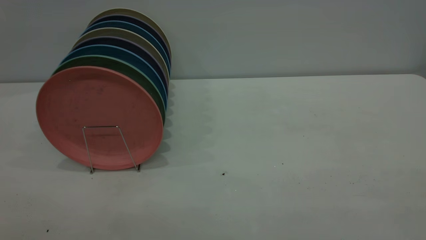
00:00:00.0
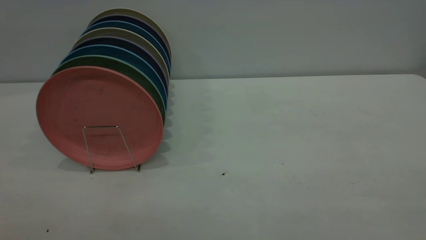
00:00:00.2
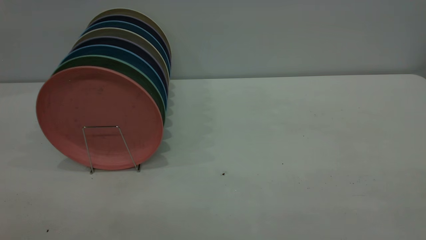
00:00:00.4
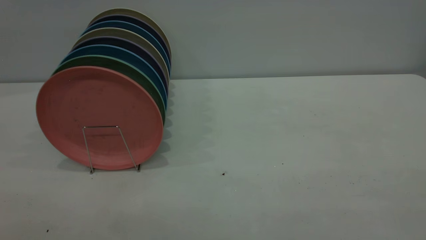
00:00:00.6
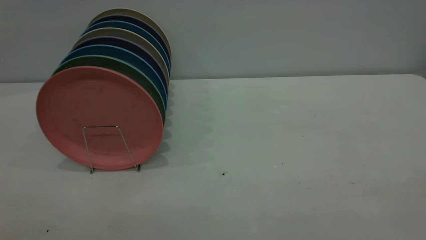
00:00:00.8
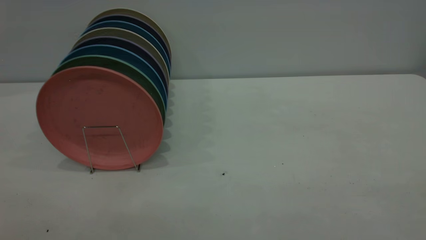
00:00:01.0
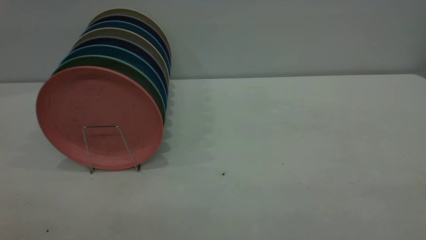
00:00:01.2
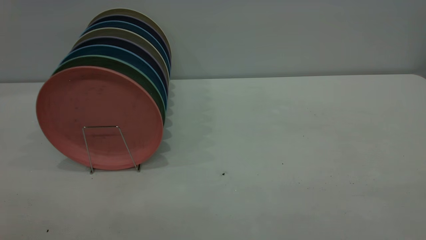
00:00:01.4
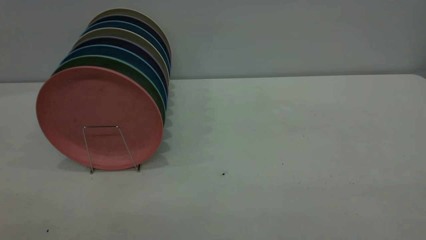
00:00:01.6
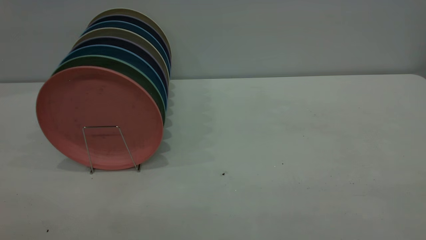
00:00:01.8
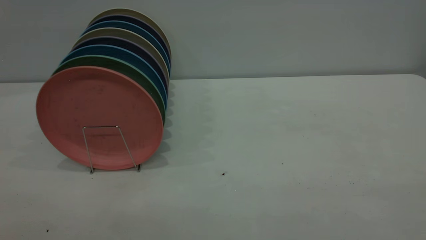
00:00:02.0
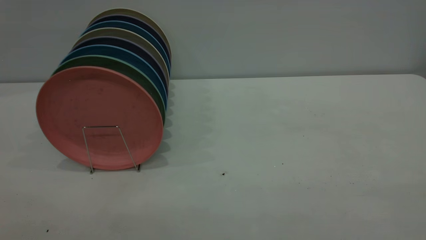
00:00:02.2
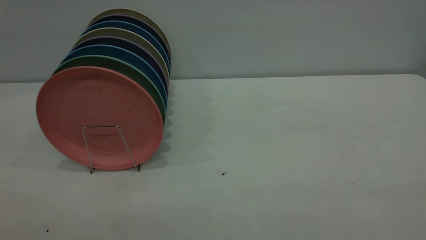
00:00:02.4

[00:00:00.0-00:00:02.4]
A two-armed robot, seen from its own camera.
Task of the whole recording: the right gripper grasp the pink plate, the right gripper pass the pink plate to the left gripper, and the left gripper place the pink plate on the plate rack.
00:00:01.2 to 00:00:02.4: The two grippers keep their place.

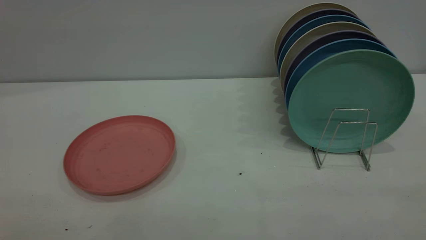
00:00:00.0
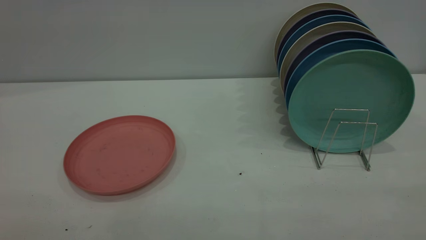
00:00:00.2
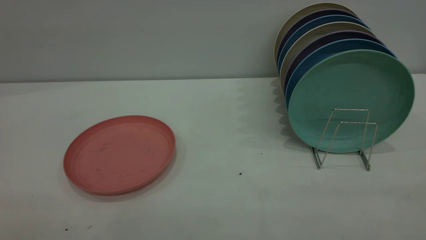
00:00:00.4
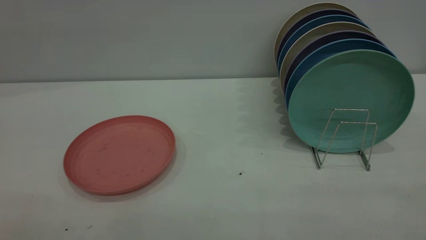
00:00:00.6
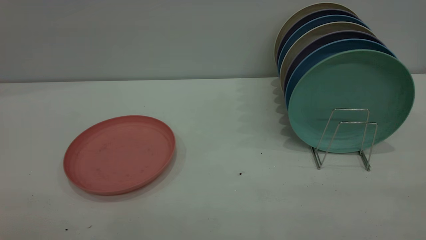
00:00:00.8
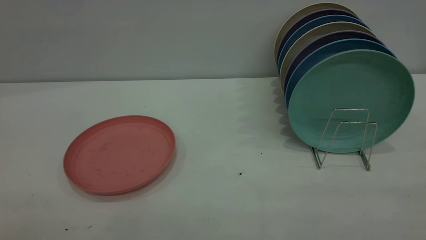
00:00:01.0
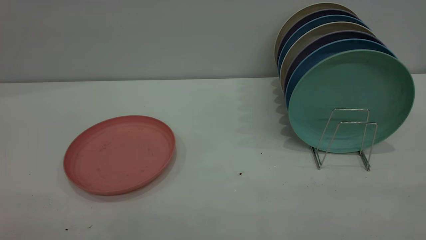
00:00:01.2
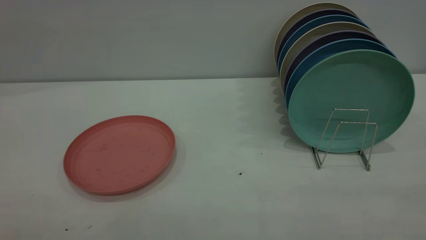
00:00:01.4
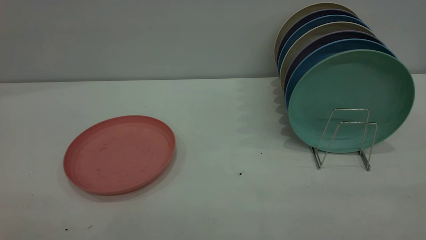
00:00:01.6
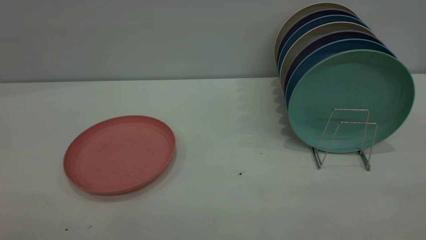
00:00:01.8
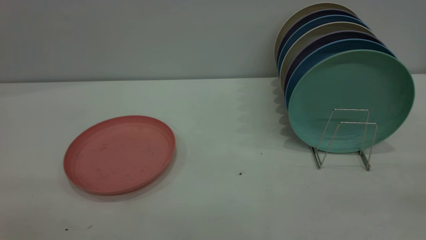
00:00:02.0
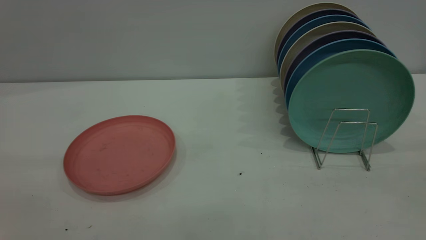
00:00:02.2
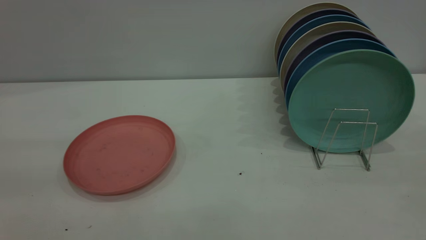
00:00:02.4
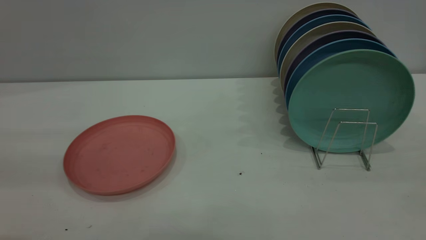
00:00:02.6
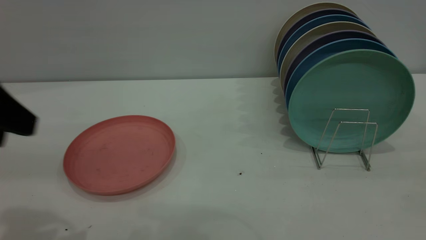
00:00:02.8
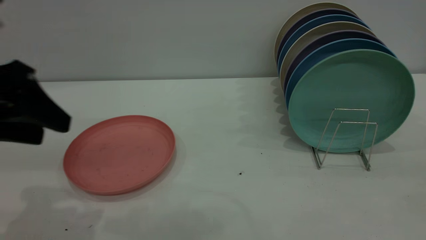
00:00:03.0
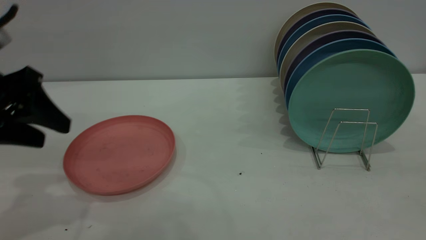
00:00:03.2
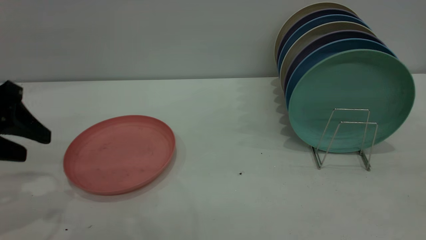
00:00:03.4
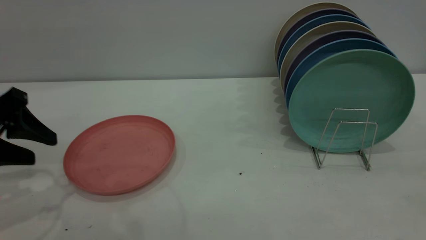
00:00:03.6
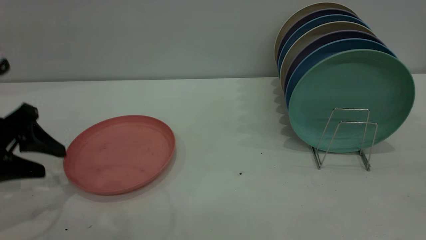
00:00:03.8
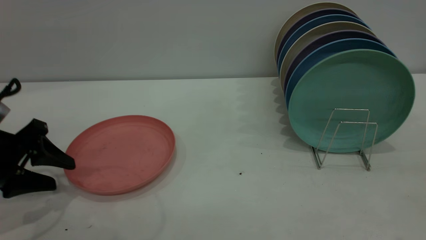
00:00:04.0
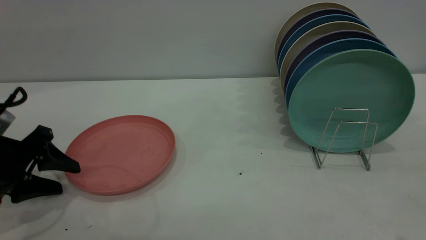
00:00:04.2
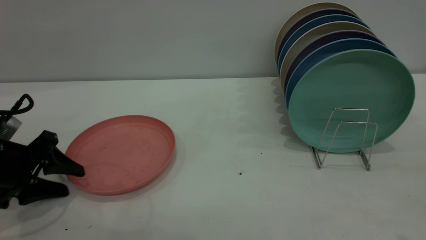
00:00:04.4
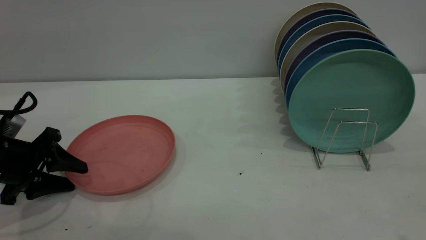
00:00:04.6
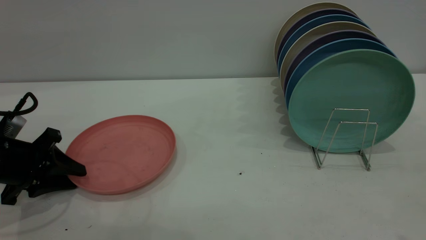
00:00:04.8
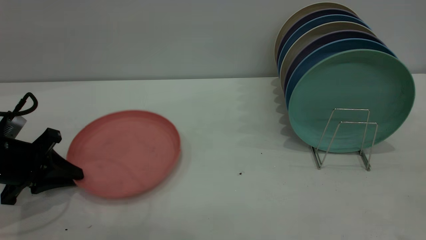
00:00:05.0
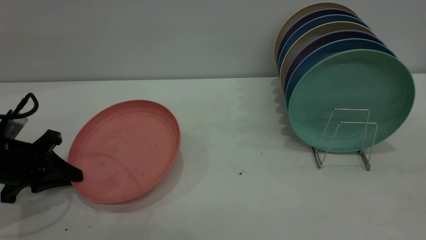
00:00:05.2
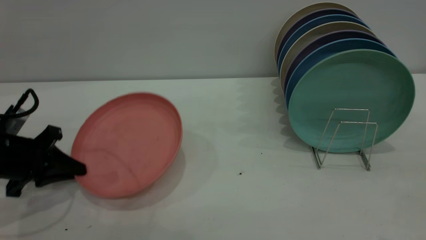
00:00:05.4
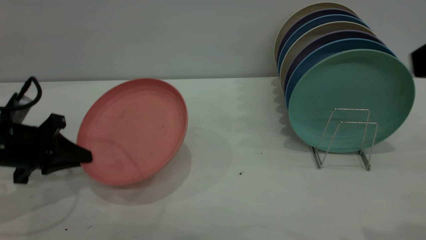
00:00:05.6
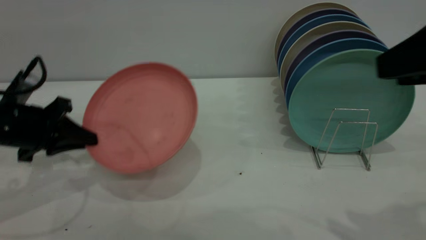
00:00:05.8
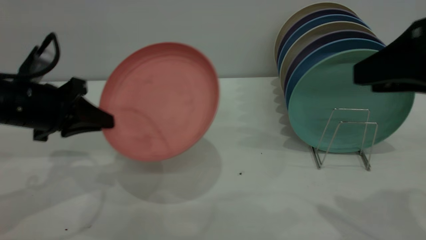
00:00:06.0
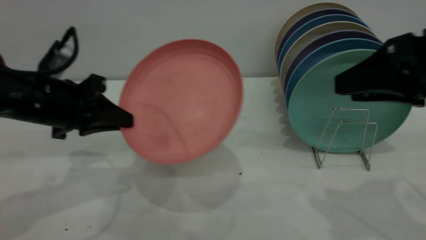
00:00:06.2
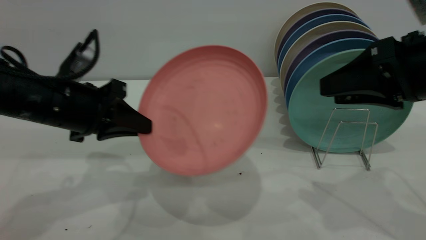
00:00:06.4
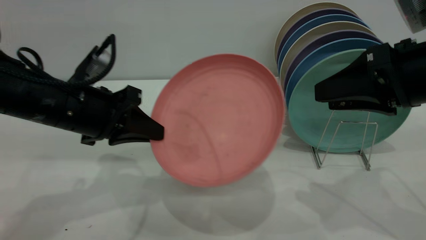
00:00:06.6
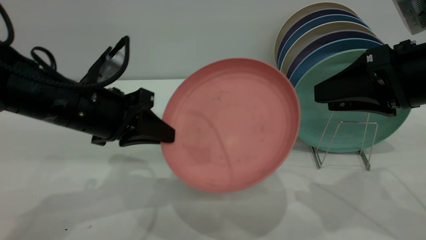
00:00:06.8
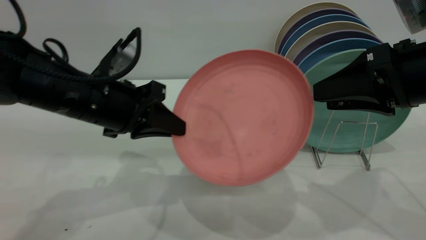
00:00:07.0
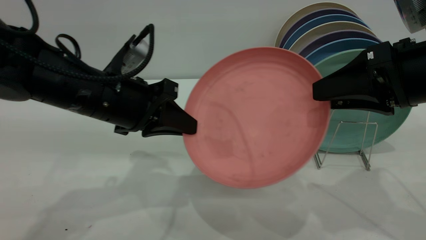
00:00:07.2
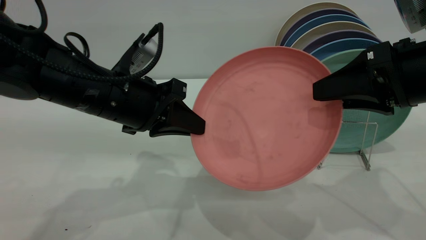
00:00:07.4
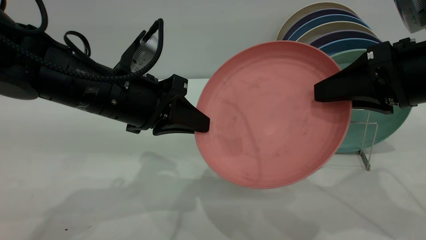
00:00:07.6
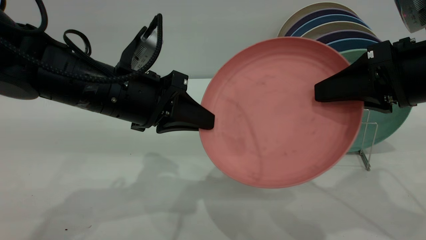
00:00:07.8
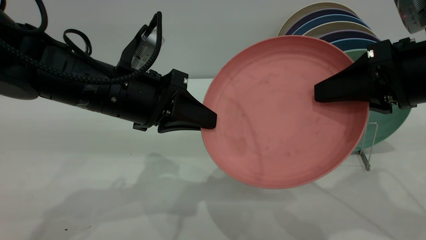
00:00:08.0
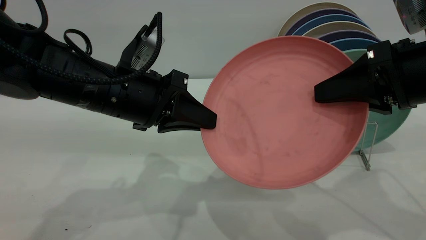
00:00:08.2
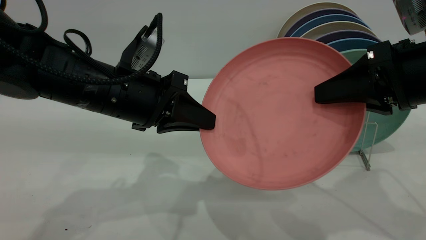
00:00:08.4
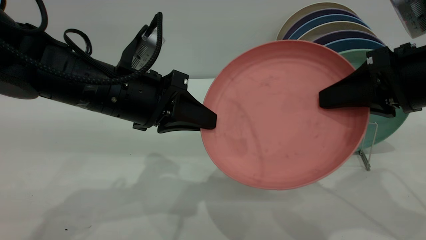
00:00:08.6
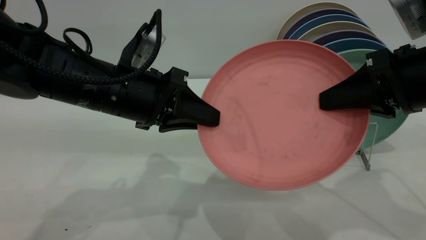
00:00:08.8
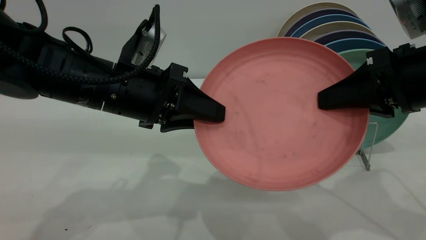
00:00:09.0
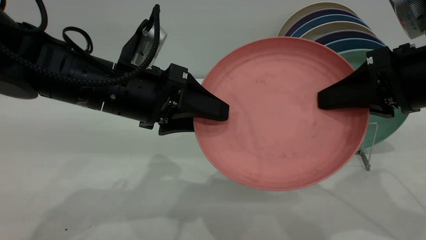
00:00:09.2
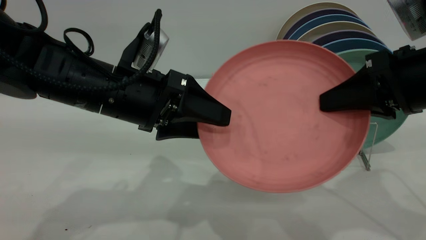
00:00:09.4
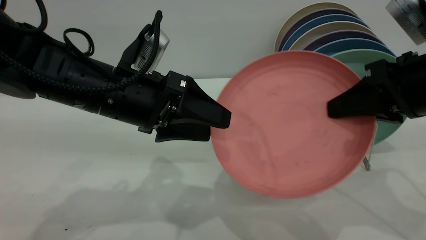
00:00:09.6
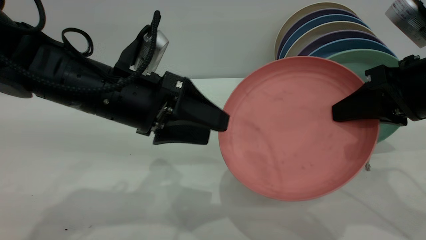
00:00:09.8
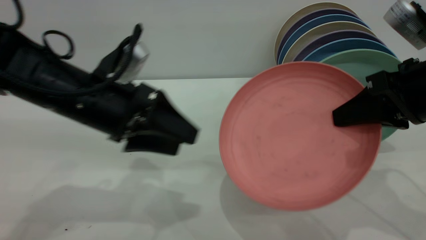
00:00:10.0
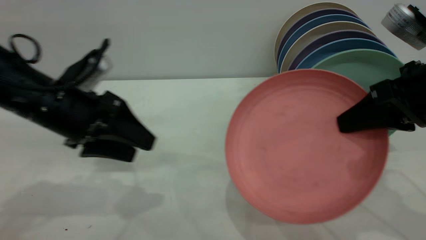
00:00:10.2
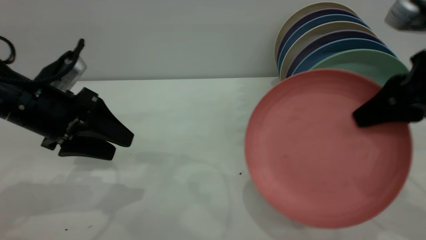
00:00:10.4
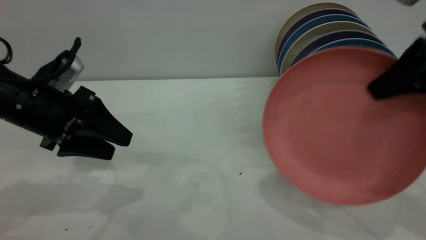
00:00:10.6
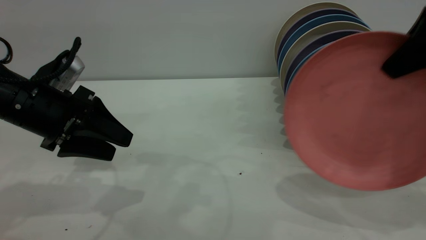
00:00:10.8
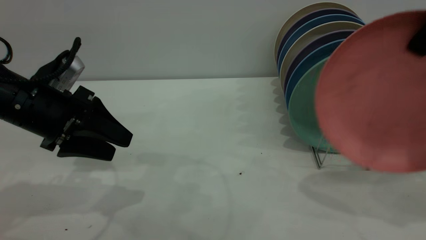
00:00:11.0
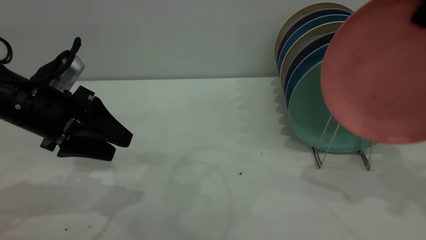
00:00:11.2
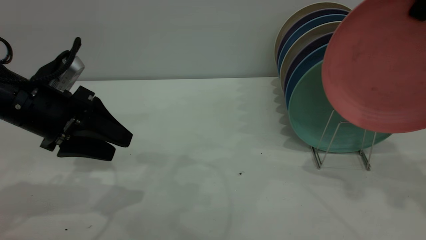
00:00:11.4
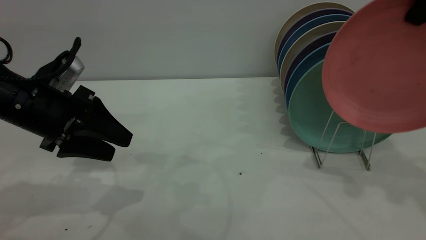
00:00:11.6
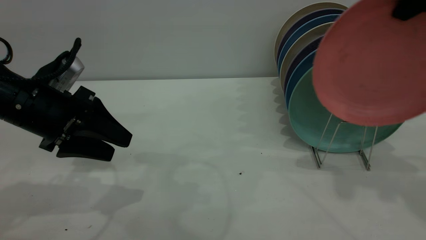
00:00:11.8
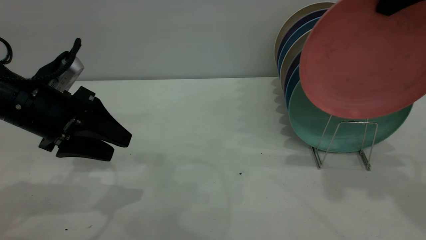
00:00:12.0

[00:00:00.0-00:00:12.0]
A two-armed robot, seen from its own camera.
Task of the whole recording: the left gripper grasp the pink plate, the left gripper pass the pink plate to the right gripper, and the right gripper place the pink plate on the plate rack.
Step, 00:00:00.0 to 00:00:05.4: Pick up the plate with the left gripper.
Step, 00:00:05.6 to 00:00:09.8: Pass the plate from the left gripper to the right gripper.
00:00:00.0 to 00:00:01.6: The two grippers keep their place.
00:00:01.6 to 00:00:03.0: The left gripper heads forward and downward, covering some 30 cm.
00:00:03.0 to 00:00:04.4: The left gripper shifts approximately 15 cm downward.
00:00:04.4 to 00:00:06.0: The left gripper goes approximately 10 cm upward and to the right, and closes; the right gripper goes approximately 15 cm forward and downward.
00:00:06.0 to 00:00:07.6: The right gripper moves roughly 5 cm, and closes its fingers, while the left gripper heads to the right, covering some 15 cm.
00:00:07.6 to 00:00:09.0: The right gripper closes. Meanwhile the left gripper opens.
00:00:09.0 to 00:00:10.4: The left gripper heads to the left, covering about 10 cm, and opens.
00:00:10.4 to 00:00:12.0: The right gripper goes some 15 cm upward and forward.

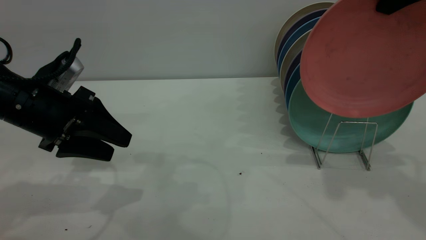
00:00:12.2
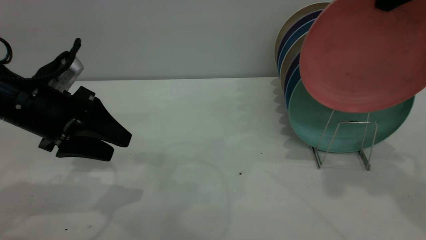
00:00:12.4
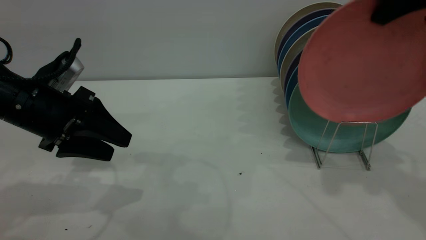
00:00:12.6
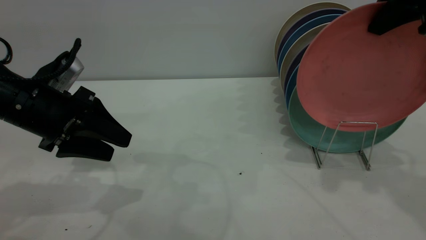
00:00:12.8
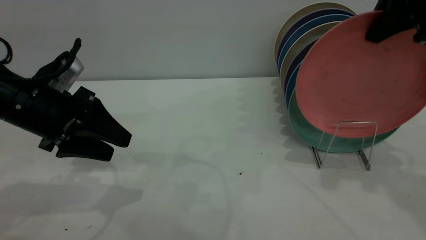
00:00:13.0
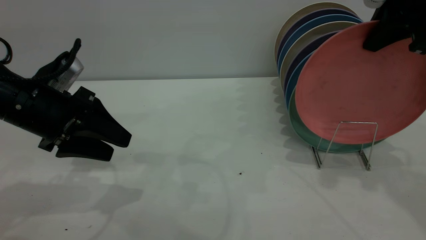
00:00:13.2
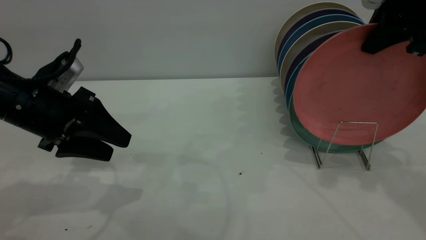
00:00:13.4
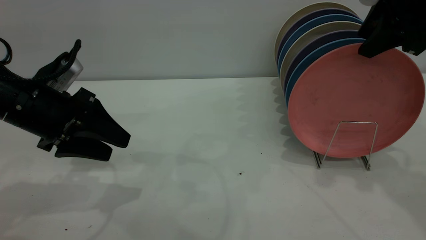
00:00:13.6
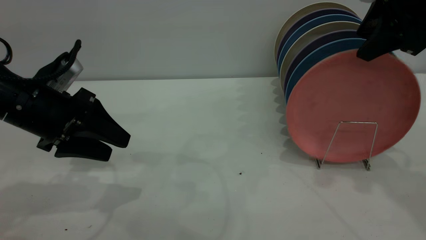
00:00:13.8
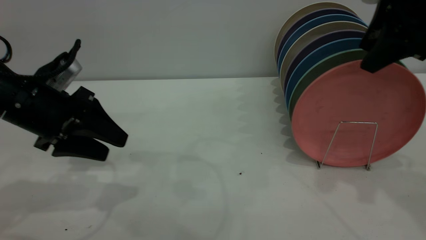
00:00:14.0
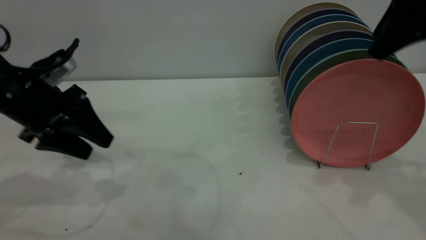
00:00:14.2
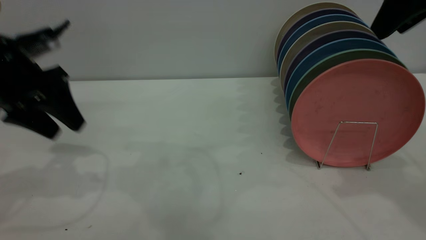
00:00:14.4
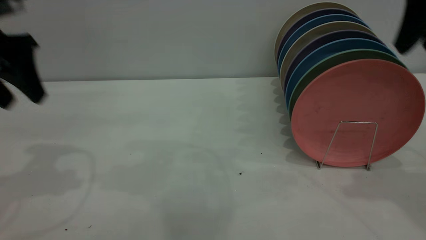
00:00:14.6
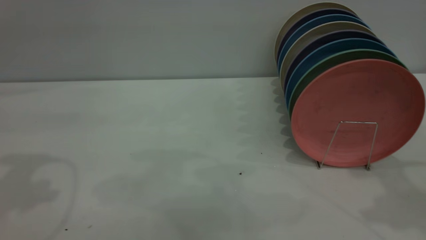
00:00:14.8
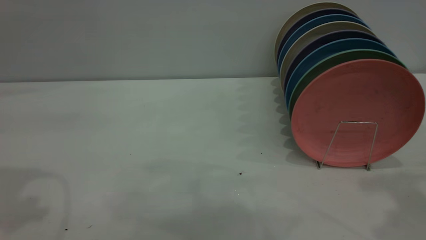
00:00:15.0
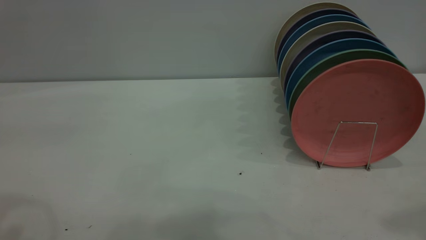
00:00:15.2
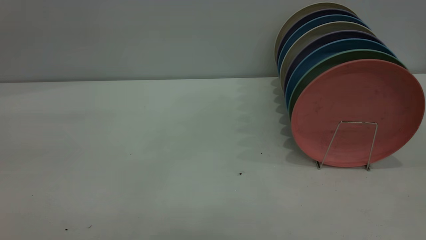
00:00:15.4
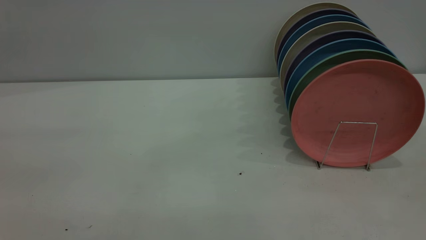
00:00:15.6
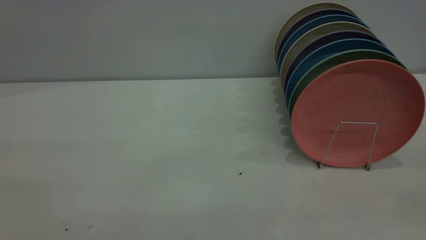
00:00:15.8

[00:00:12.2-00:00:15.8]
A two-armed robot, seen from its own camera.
Task of the whole recording: the left gripper grasp the pink plate, the left gripper pass the pink plate to the right gripper, and the right gripper place the pink plate on the plate rack.
Step, 00:00:12.2 to 00:00:14.4: Place the plate on the shelf.
00:00:12.2 to 00:00:14.0: The right gripper goes approximately 5 cm downward, and opens its fingers.
00:00:14.0 to 00:00:15.8: The left gripper heads backward and upward, covering about 40 cm; the right gripper shifts about 30 cm backward.
